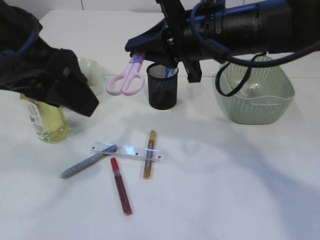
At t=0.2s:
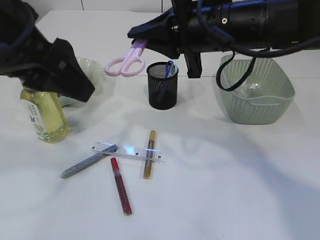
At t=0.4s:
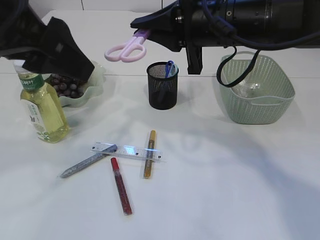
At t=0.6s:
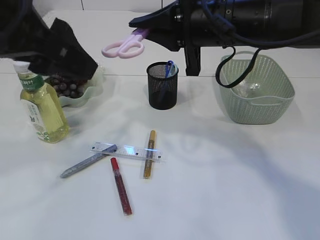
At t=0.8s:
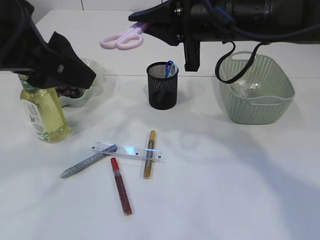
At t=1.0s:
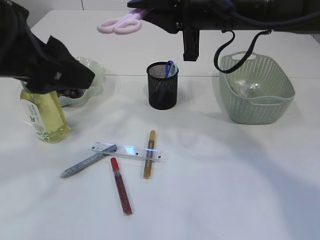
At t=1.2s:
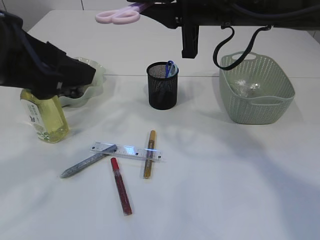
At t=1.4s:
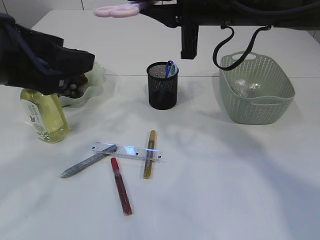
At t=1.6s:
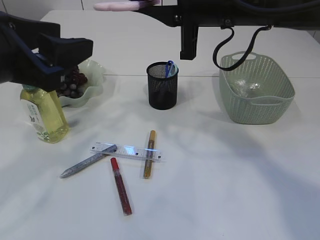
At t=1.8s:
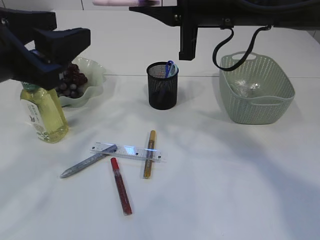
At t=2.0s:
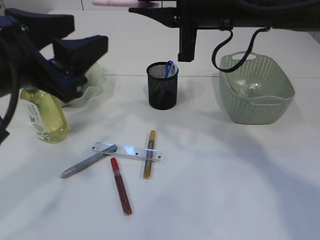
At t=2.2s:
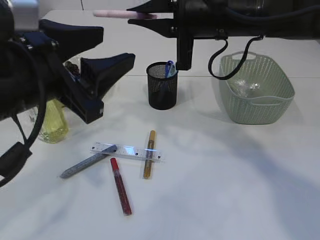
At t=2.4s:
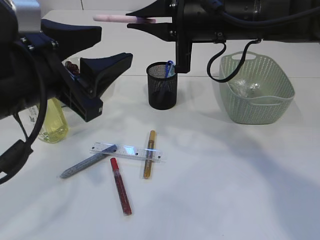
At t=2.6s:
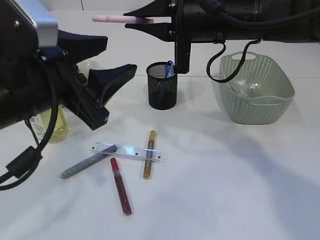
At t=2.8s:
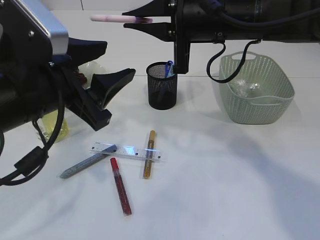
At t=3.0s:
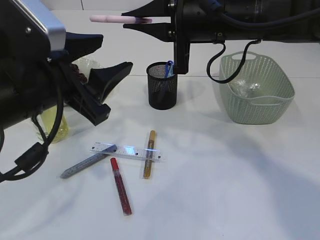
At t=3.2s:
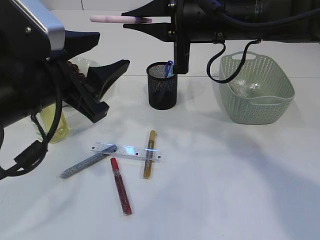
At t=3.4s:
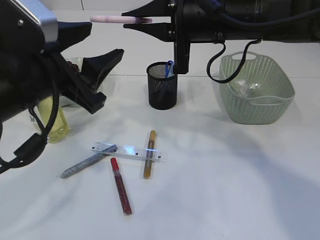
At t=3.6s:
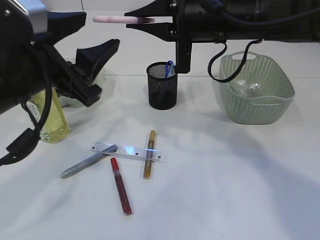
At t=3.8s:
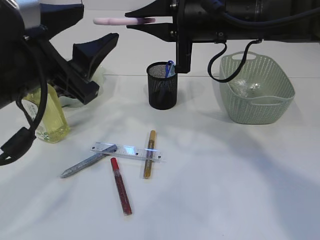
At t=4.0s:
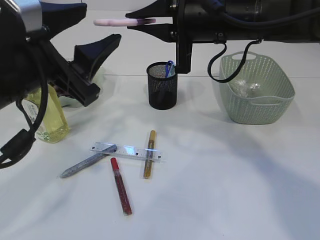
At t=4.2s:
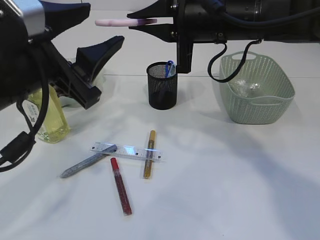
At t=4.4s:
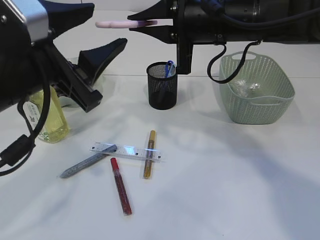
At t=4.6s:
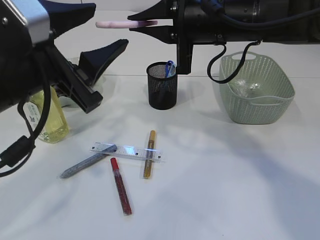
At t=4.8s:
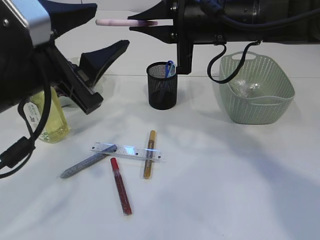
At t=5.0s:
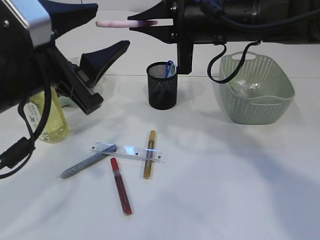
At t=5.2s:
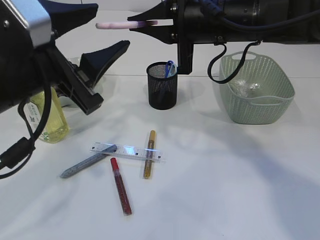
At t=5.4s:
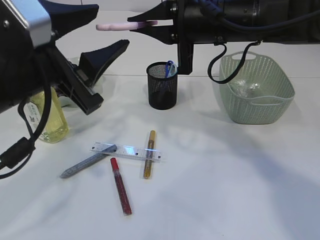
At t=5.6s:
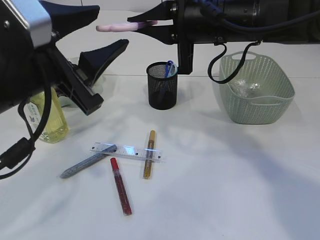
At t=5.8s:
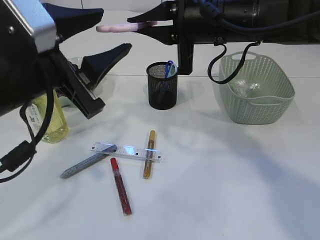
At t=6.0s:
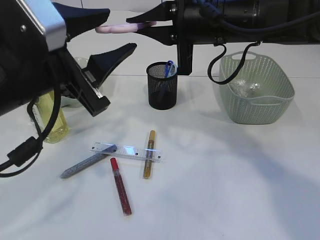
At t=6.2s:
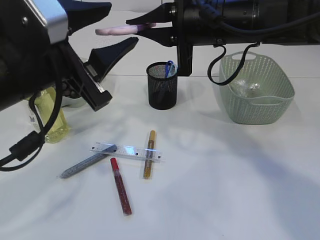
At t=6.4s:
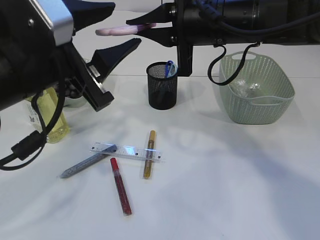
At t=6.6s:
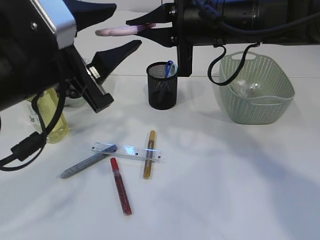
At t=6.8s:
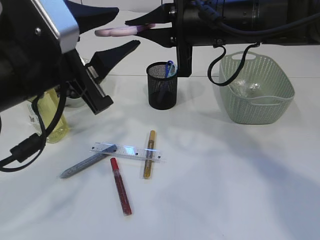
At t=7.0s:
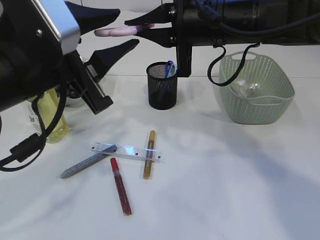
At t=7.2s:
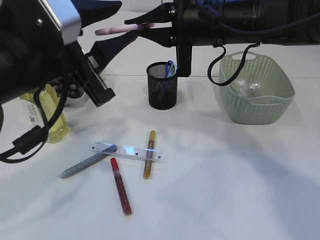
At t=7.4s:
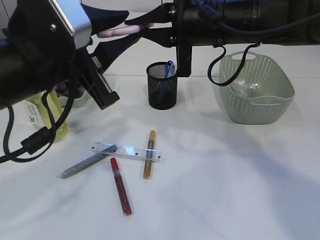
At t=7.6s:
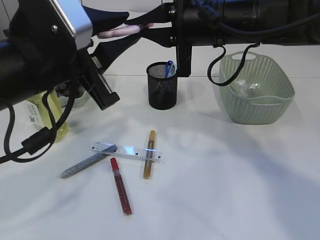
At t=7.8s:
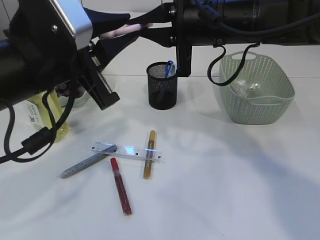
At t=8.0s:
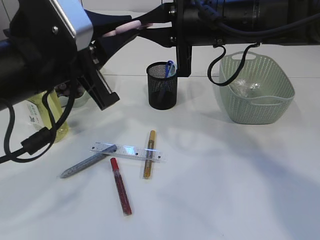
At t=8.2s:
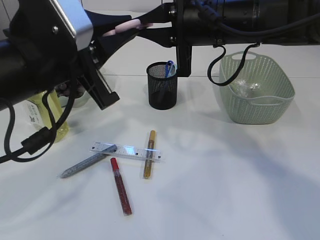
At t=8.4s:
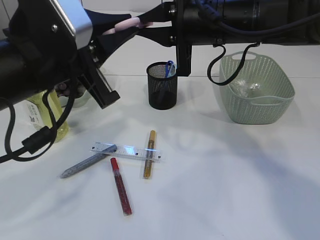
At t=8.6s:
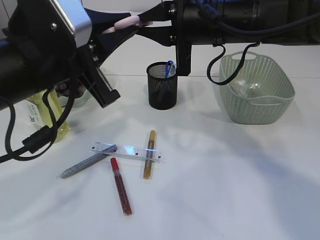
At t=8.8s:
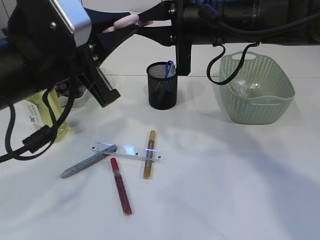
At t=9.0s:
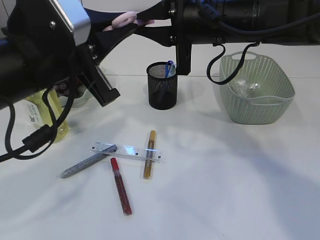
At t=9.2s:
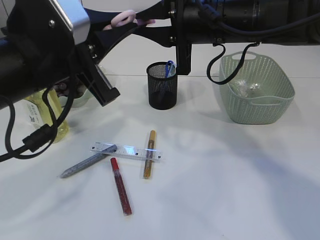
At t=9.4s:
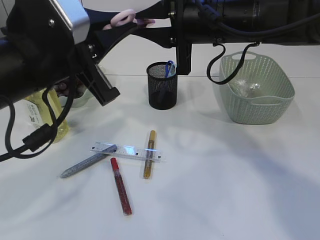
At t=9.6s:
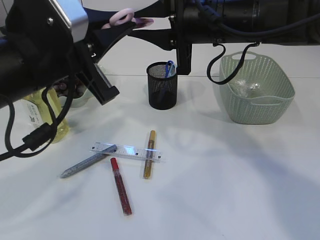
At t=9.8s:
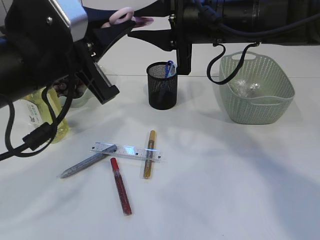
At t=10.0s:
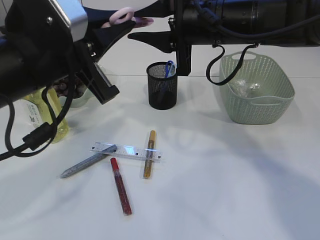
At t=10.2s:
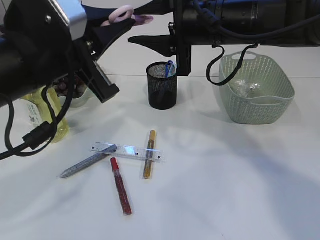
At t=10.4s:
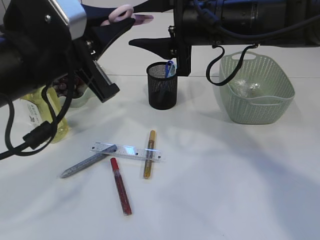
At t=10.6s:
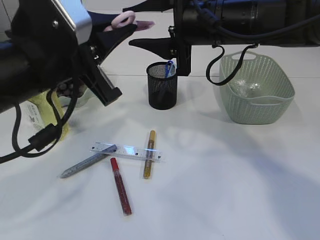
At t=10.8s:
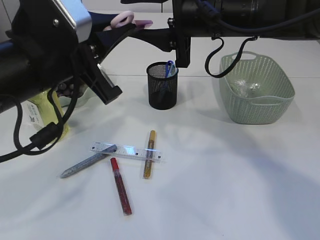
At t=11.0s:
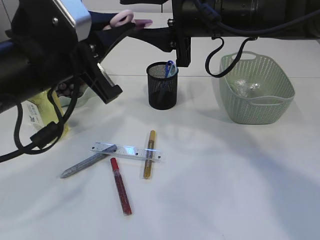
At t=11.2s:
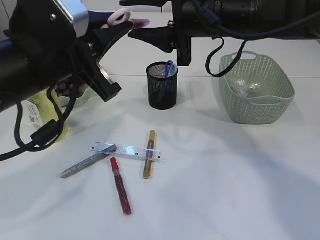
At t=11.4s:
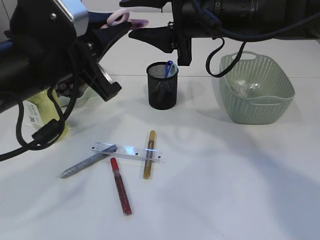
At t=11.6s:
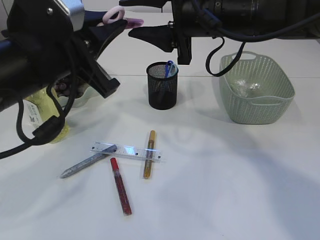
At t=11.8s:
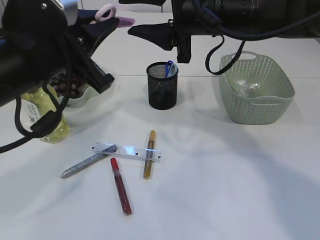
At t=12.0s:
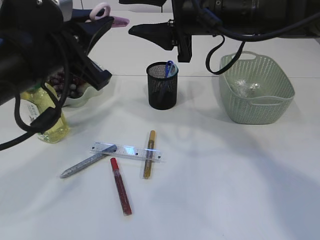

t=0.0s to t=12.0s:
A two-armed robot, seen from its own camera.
t=1.6s to t=3.0s: The left gripper moves about 5 cm.
t=3.0s to t=6.0s: The grippers make only small movements.
t=6.0s to t=7.6s: The left gripper closes its fingers.
t=7.6s to t=9.0s: Both grippers stay put.
t=9.0s to t=10.4s: The right gripper opens its fingers.
t=10.4s to t=12.0s: The grippers make only small movements.

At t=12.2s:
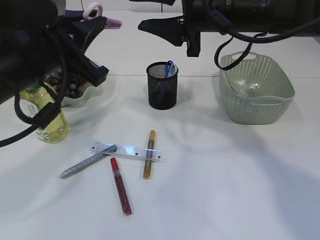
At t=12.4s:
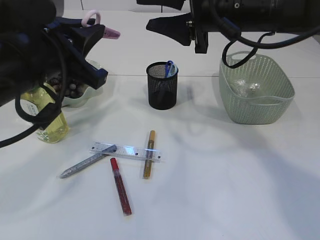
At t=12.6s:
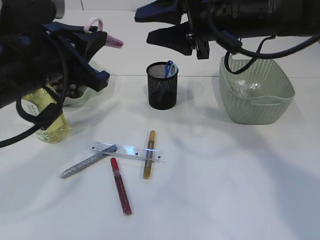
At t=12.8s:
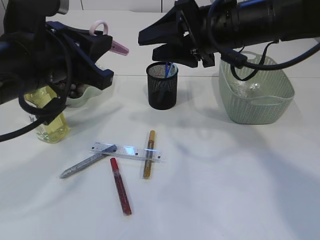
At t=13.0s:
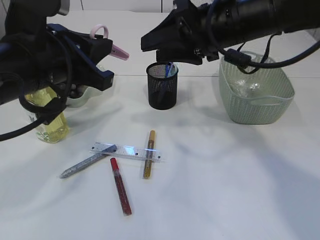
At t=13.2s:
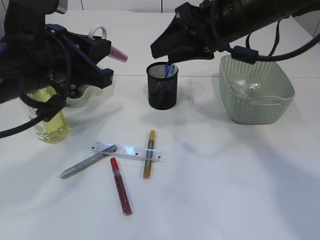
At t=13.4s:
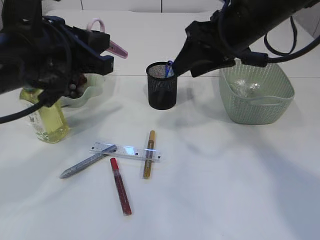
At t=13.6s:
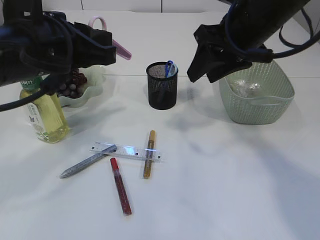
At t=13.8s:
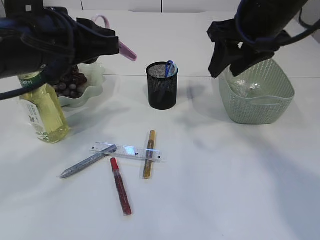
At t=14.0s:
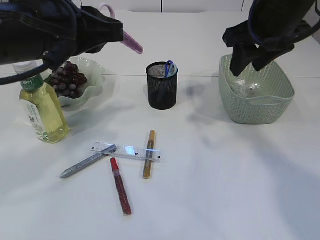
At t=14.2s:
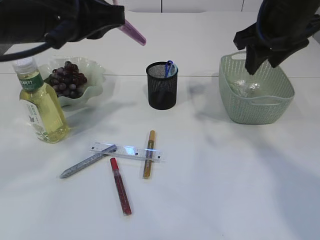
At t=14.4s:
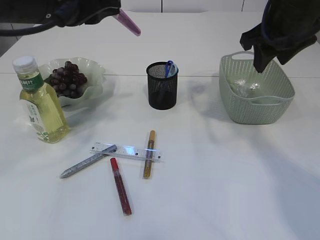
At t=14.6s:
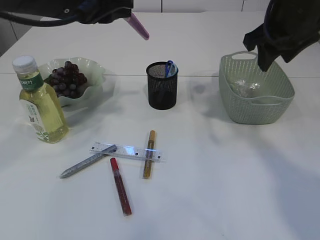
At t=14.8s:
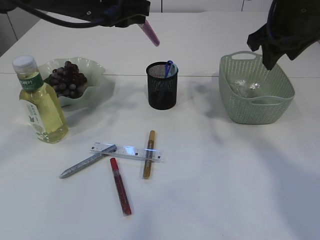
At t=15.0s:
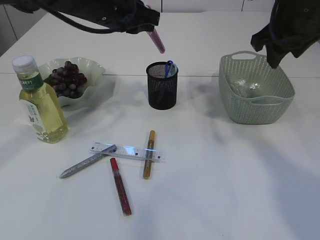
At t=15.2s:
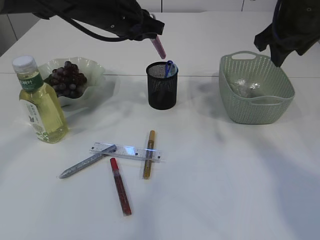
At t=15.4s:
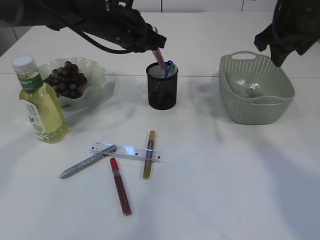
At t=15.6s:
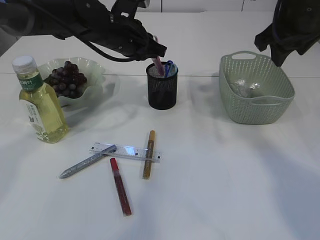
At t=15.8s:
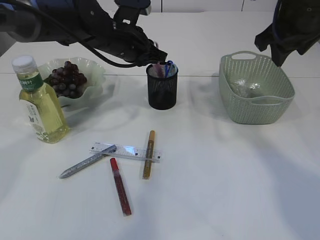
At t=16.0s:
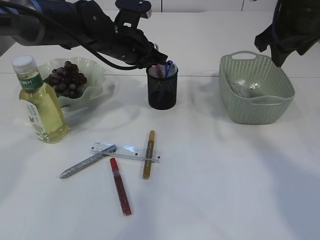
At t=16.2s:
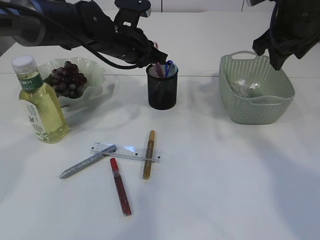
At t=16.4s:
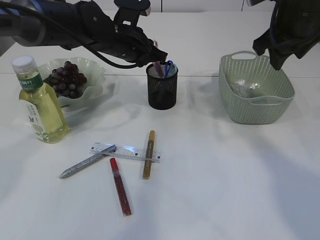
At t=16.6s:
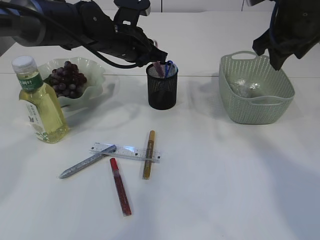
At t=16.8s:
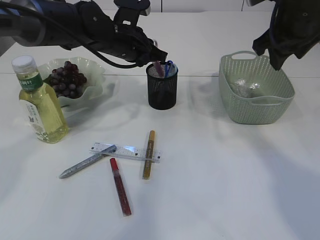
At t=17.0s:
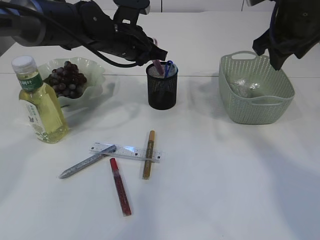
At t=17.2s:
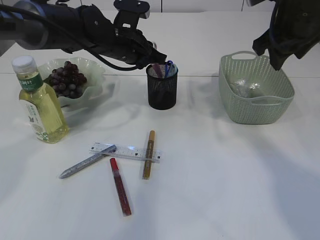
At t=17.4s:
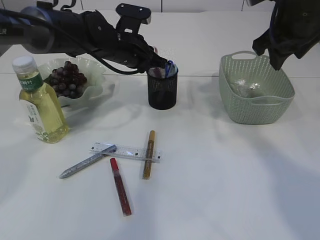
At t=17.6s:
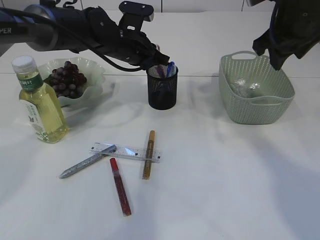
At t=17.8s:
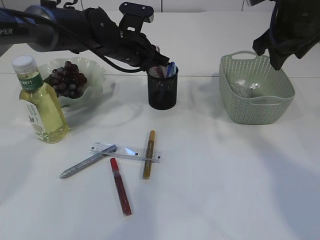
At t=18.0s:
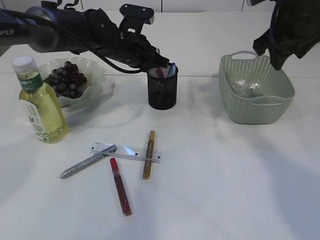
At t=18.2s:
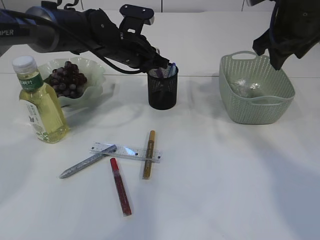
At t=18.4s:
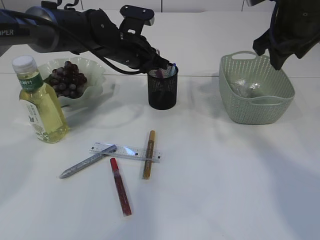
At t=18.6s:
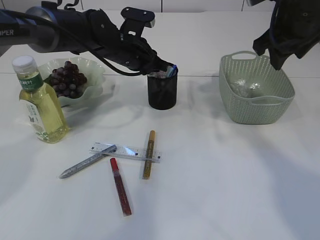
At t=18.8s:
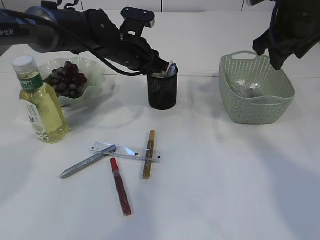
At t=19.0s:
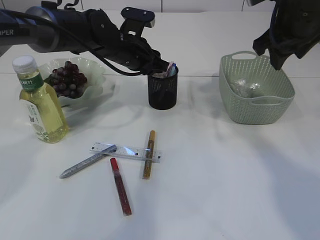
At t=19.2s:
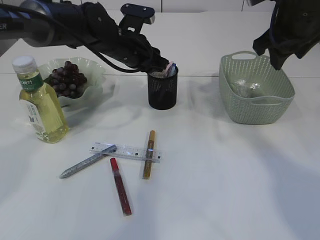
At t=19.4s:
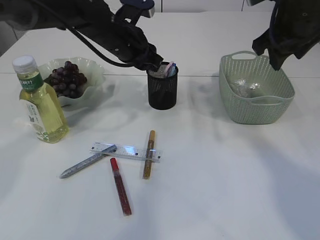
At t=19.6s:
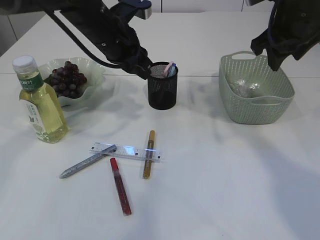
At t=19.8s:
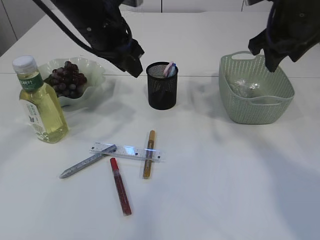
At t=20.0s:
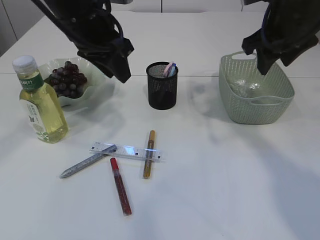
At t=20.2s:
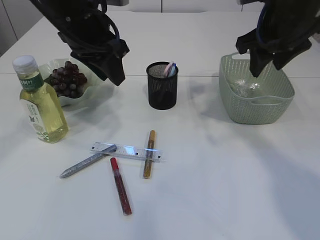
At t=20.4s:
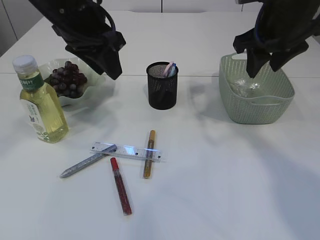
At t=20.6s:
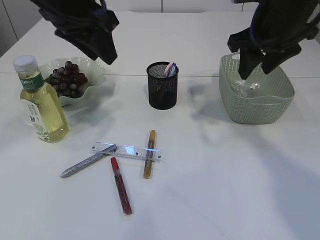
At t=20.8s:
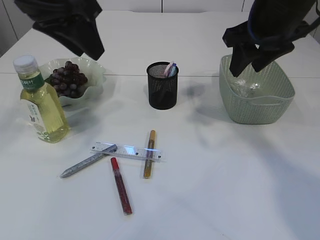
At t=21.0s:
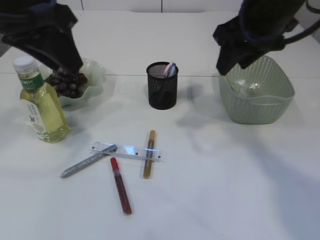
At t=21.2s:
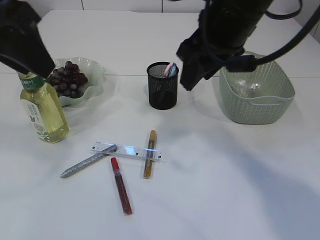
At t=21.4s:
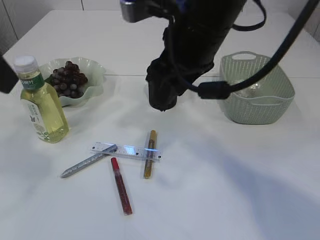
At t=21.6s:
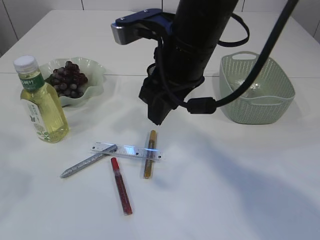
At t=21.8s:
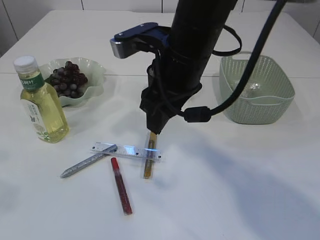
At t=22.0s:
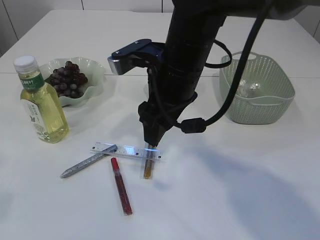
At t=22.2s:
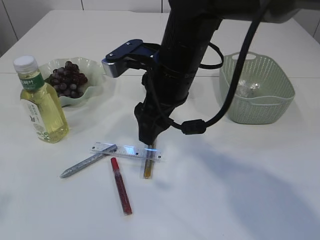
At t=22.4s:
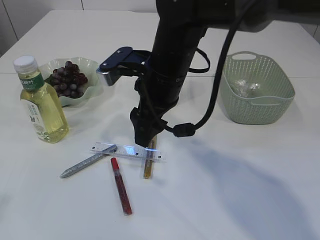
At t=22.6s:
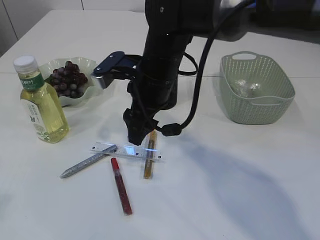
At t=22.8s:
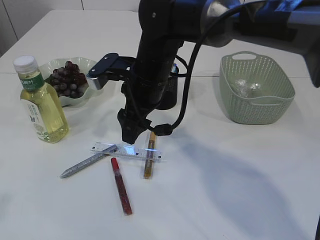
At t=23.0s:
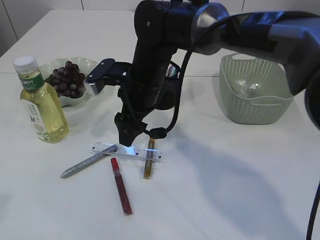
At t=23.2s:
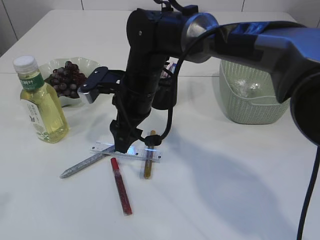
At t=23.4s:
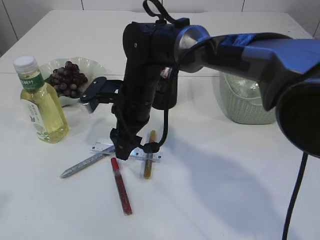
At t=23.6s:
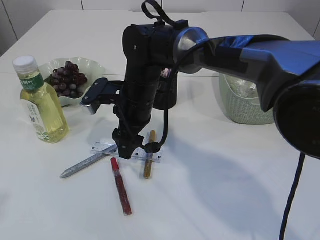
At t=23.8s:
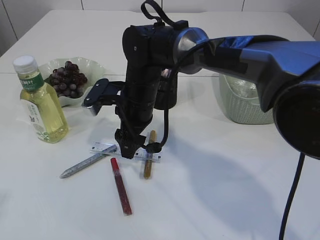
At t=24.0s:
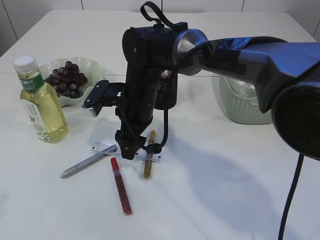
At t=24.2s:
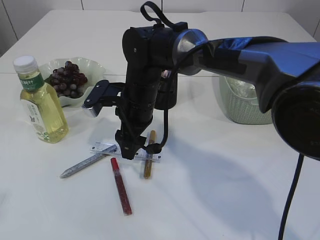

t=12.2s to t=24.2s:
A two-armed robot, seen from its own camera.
Step, t=12.8s to t=20.2s: Place the pink scissors into the pen holder.
t=12.2s to t=13.8s: The right gripper goes roughly 5 cm to the right.
t=13.8s to t=15.2s: The left gripper travels forward by about 15 cm. The right gripper travels to the right by about 5 cm.
t=15.2s to t=16.6s: The left gripper moves downward, roughly 5 cm.
t=16.6s to t=18.2s: There are only small adjustments of the grippers.
t=18.2s to t=19.8s: The left gripper goes roughly 10 cm upward and backward, and opens its fingers.
t=19.8s to t=21.2s: The right gripper travels to the left by roughly 10 cm, while the left gripper moves backward, upward and to the left, some 20 cm.
t=21.2s to t=22.6s: The left gripper travels backward and to the left by approximately 15 cm, while the right gripper shifts about 15 cm downward and to the left.
t=22.6s to t=24.2s: The right gripper travels downward by roughly 5 cm.
